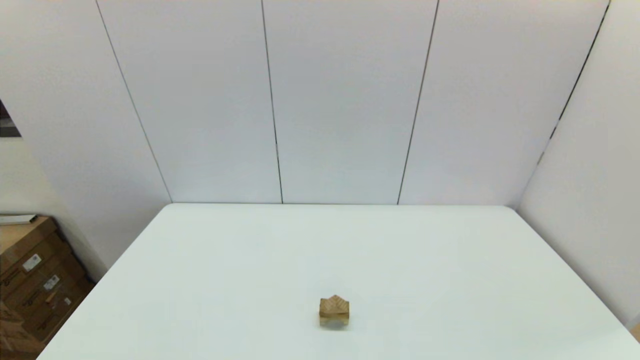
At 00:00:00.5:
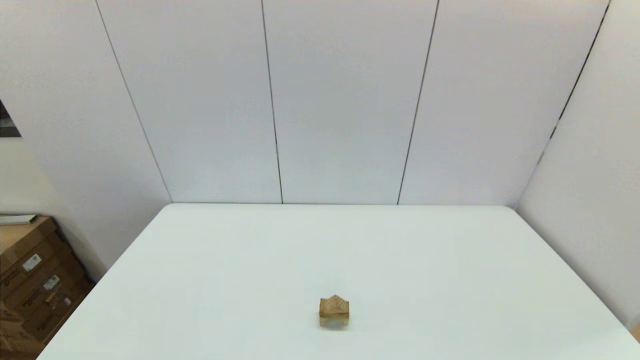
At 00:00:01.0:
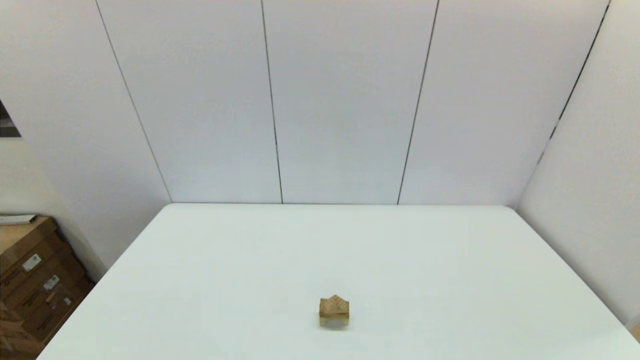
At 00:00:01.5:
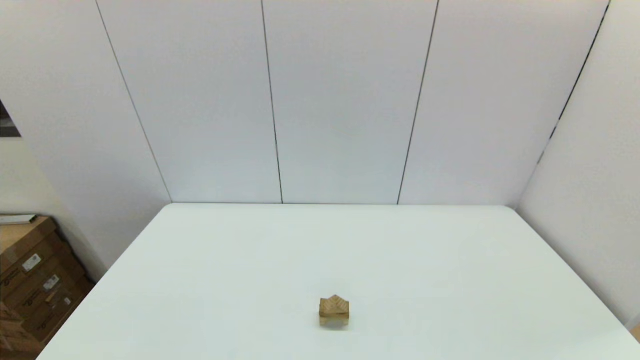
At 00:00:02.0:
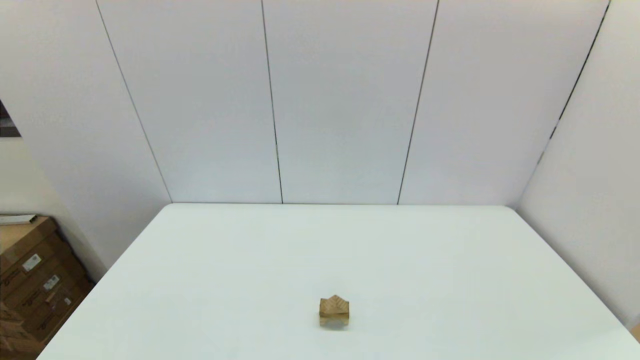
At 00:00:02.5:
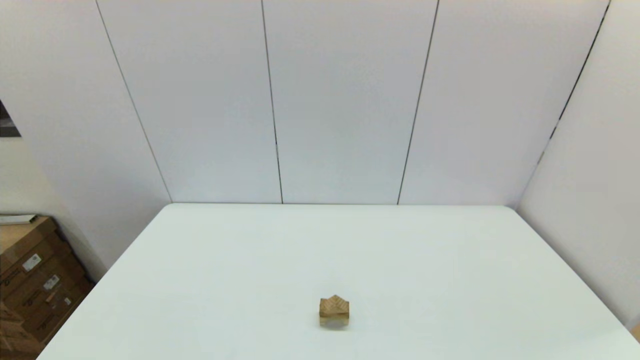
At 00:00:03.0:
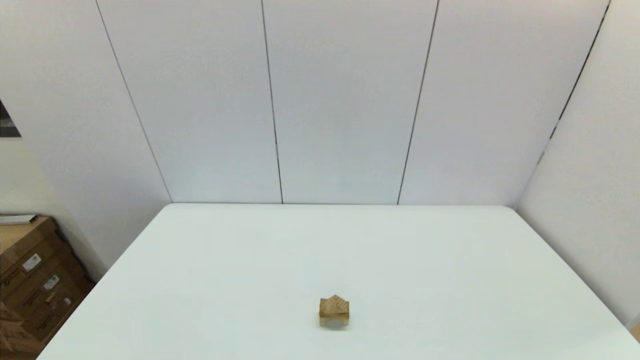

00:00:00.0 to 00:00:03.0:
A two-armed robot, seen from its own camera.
Task of the whole recording: place the arched building blocks in the center of the table, set up the rectangular building blocks, and then set up the triangular building blocks.
00:00:01.5 to 00:00:03.0: Neither gripper changes place.
